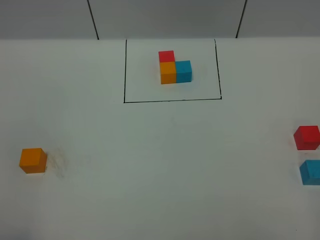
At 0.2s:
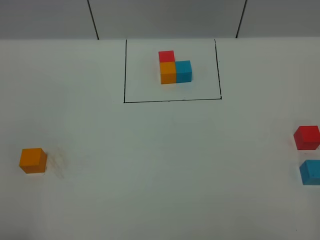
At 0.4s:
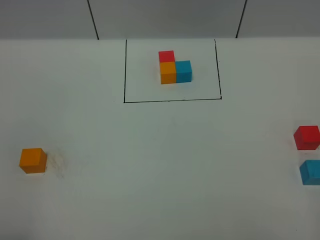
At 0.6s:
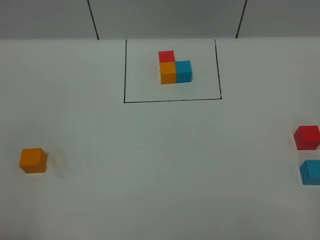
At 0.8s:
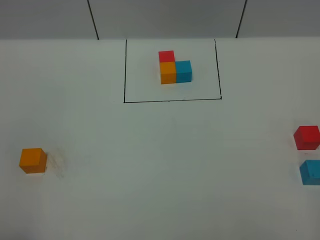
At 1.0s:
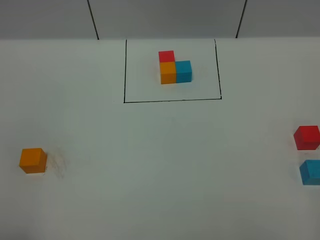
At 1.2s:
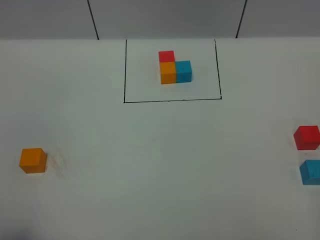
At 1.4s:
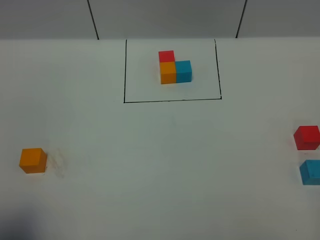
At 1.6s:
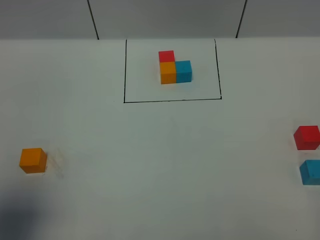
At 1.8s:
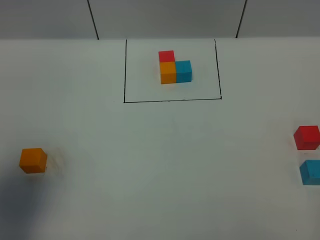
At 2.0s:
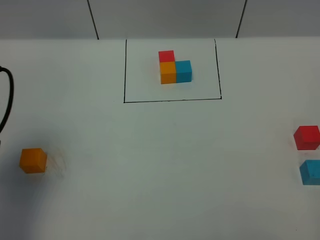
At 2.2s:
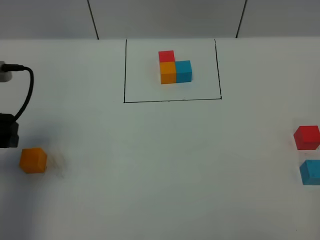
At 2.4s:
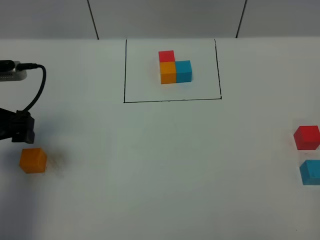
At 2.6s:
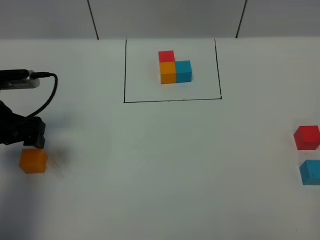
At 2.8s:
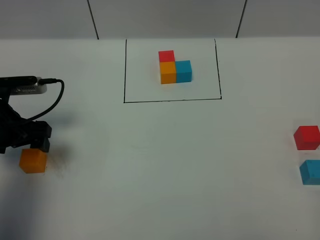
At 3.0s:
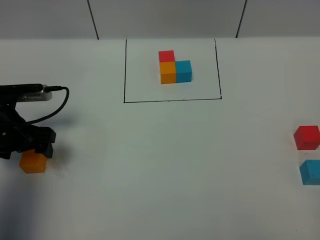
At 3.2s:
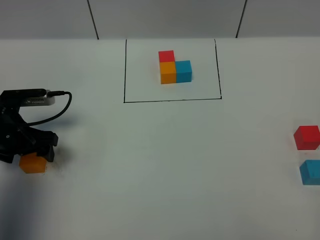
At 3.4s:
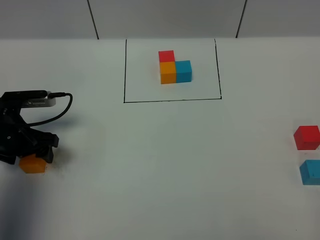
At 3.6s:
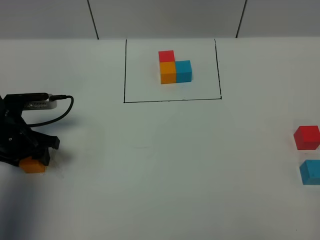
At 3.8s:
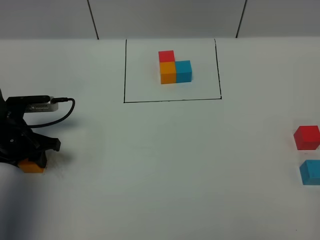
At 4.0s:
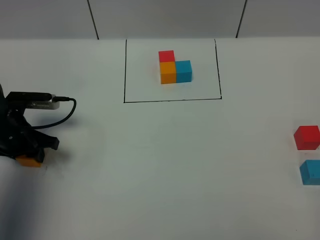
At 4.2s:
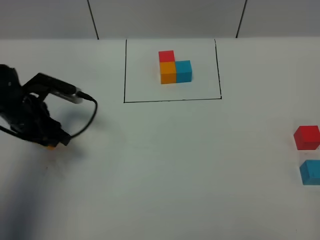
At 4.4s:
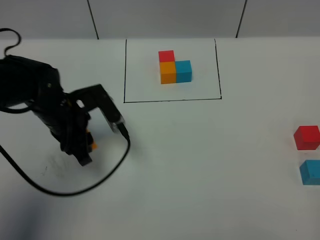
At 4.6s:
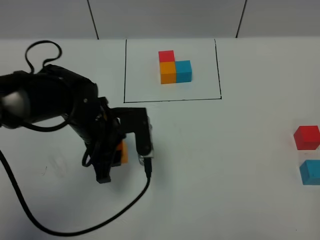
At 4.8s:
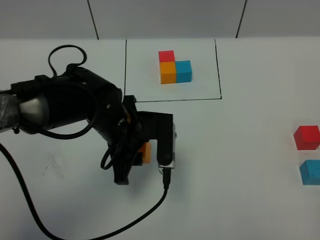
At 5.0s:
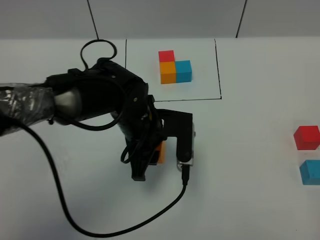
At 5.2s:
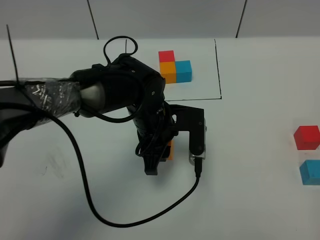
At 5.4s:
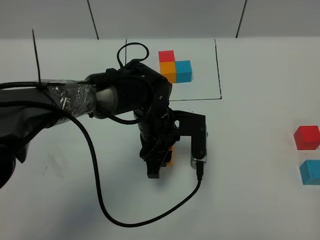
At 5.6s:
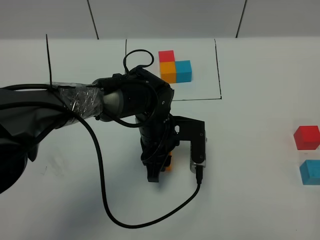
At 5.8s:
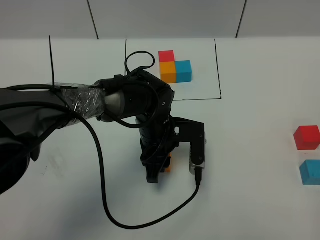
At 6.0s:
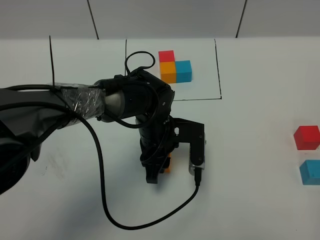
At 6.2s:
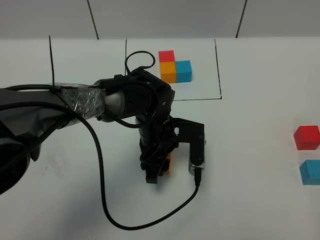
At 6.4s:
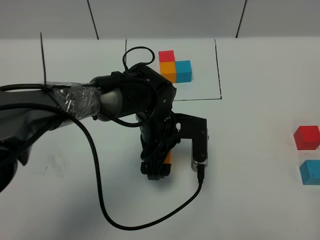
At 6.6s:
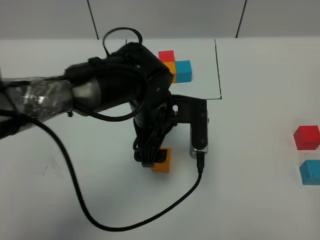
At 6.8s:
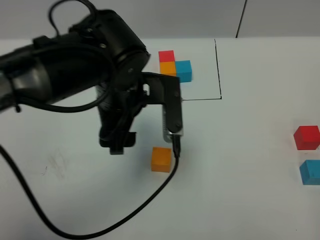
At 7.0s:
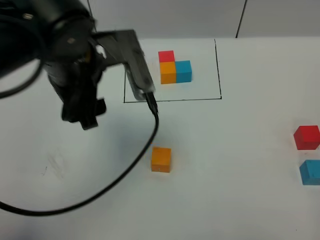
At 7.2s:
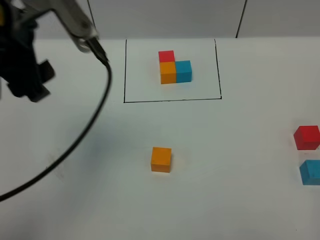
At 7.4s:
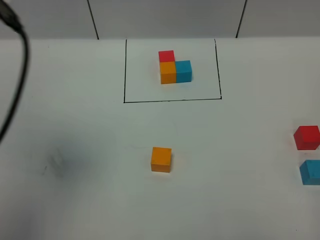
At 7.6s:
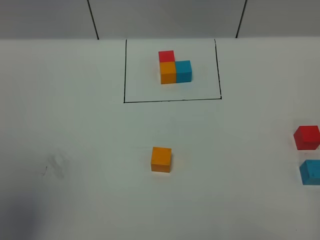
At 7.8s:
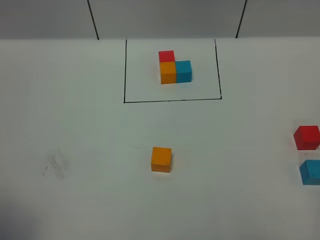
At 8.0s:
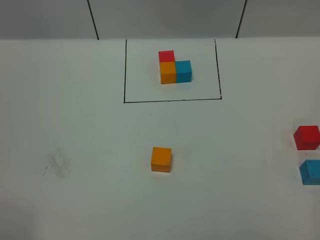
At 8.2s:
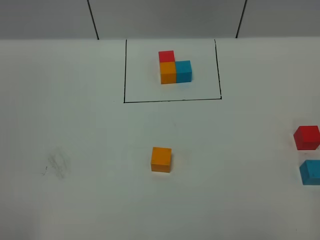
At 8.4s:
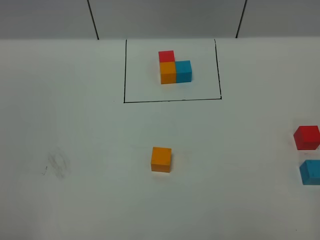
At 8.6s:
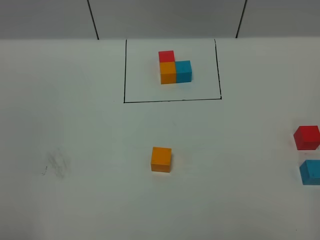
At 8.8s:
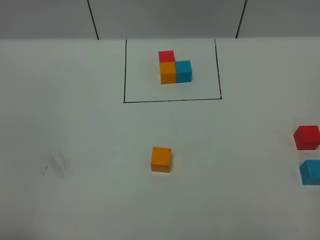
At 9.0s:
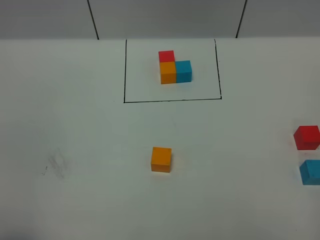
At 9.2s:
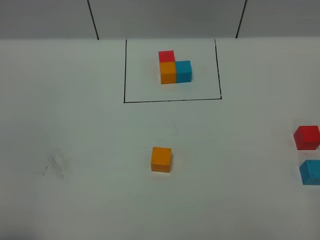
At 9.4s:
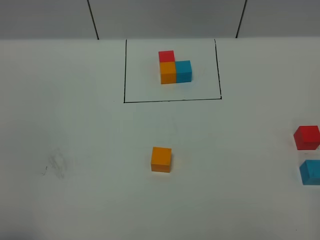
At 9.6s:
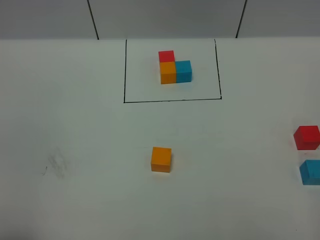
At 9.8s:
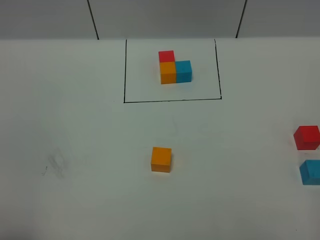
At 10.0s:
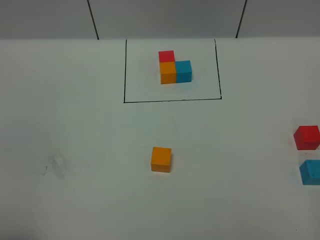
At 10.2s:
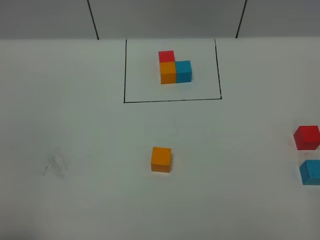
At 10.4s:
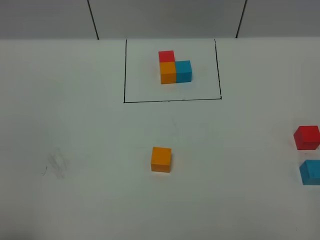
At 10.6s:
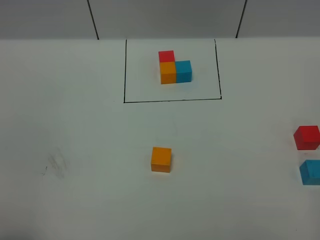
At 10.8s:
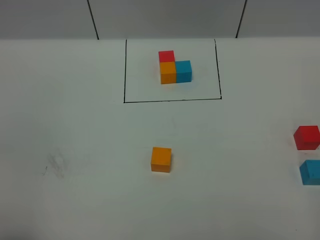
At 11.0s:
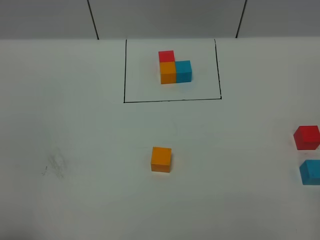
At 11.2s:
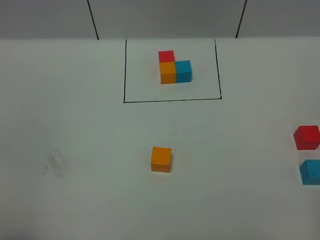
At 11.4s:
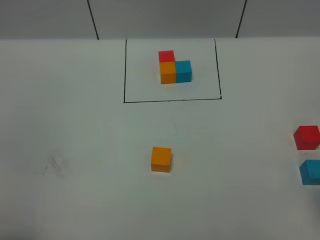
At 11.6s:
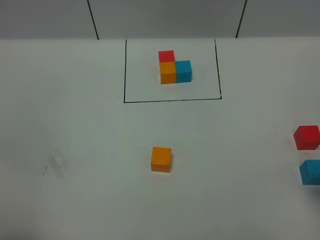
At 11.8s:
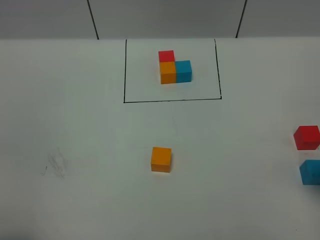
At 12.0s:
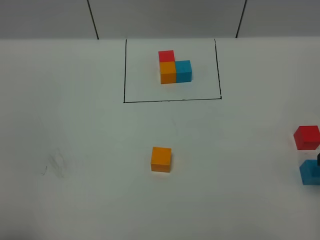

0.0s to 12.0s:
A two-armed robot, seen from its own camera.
Task of the whole recording: According to the building block template in front, assemble the scattered blocks together.
Step, 1.4s to 6.4s: Put the orange cube in the center of the table.
0.0s to 1.6s: The left gripper goes roughly 10 cm forward and upward, and opens up.
1.6s to 3.0s: The left gripper heads forward and downward, covering about 30 cm.
3.0s to 4.4s: The left gripper is displaced to the right by about 15 cm, and closes up.
4.4s to 6.0s: The left gripper shifts approximately 15 cm to the right.
6.0s to 7.6s: The left gripper shifts roughly 50 cm upward, to the left and backward, and opens its fingers.
7.6s to 9.0s: The left gripper heads downward, covering approximately 20 cm.
9.0s to 10.4s: Both grippers stay put.

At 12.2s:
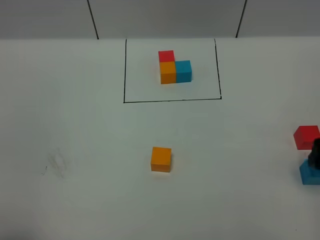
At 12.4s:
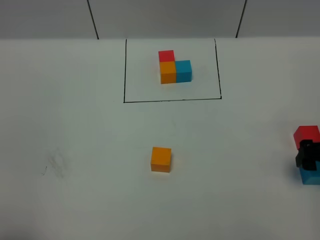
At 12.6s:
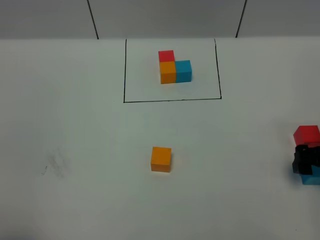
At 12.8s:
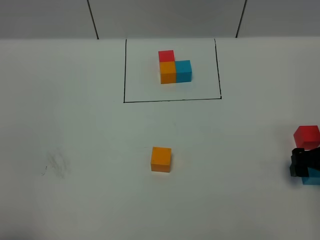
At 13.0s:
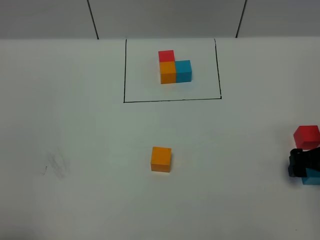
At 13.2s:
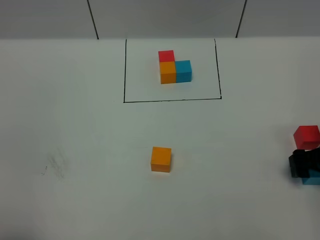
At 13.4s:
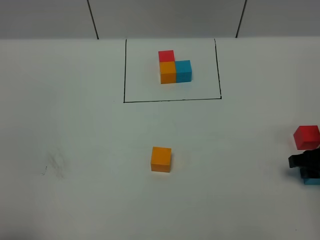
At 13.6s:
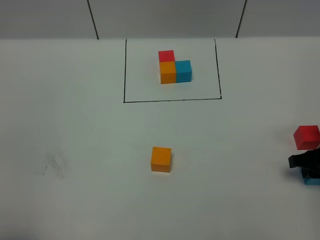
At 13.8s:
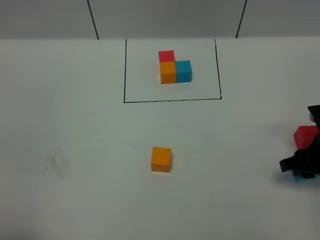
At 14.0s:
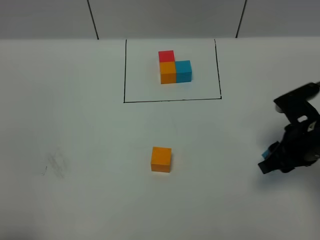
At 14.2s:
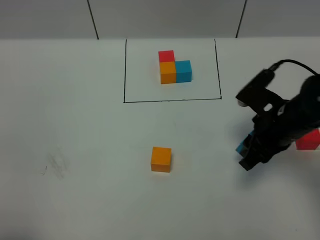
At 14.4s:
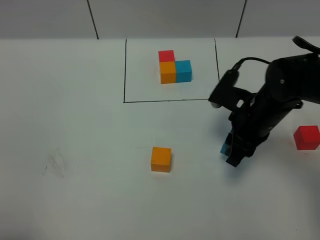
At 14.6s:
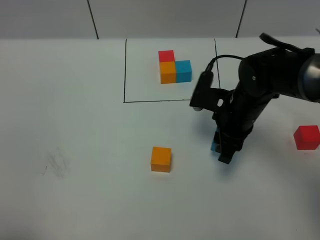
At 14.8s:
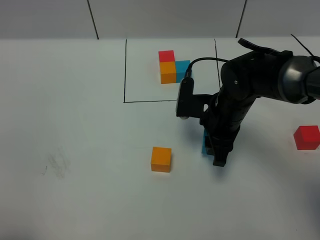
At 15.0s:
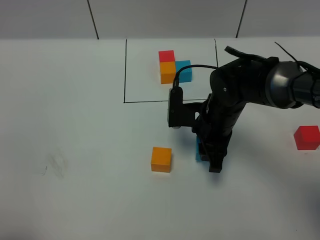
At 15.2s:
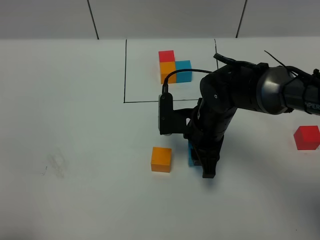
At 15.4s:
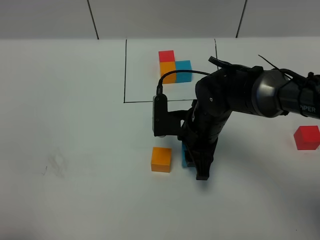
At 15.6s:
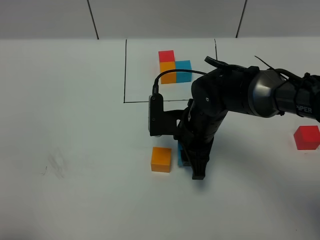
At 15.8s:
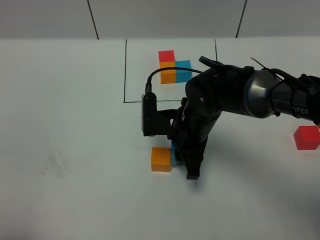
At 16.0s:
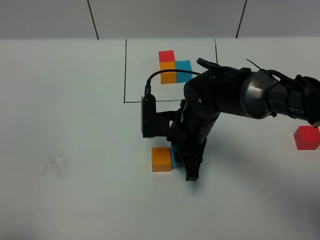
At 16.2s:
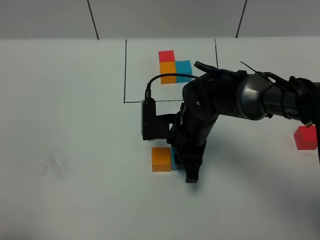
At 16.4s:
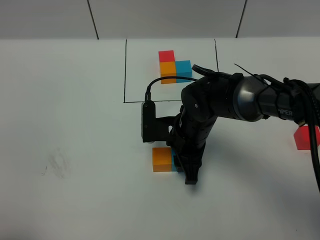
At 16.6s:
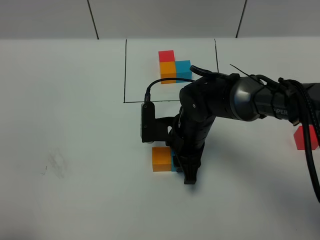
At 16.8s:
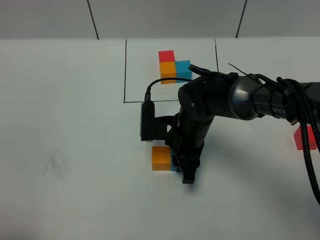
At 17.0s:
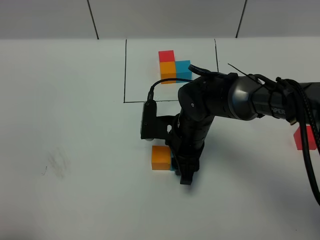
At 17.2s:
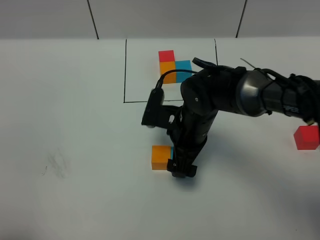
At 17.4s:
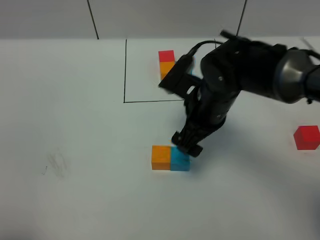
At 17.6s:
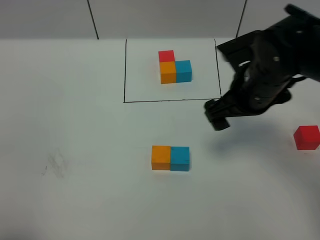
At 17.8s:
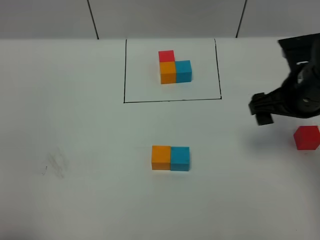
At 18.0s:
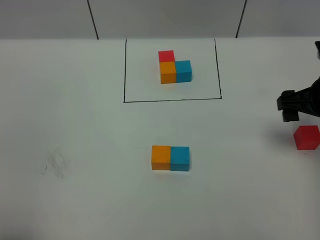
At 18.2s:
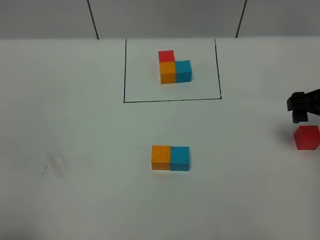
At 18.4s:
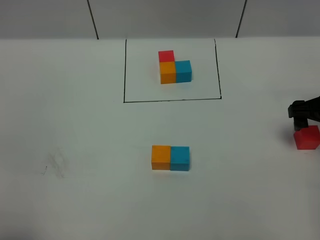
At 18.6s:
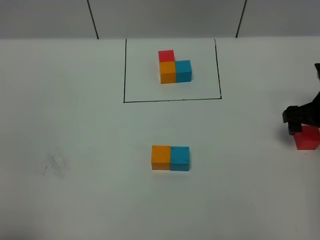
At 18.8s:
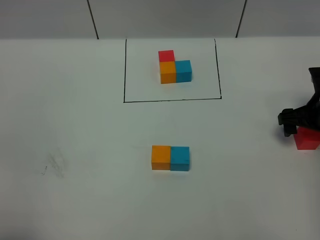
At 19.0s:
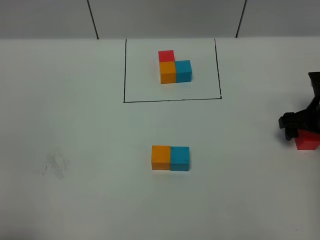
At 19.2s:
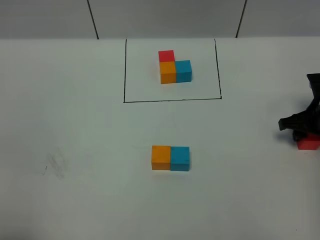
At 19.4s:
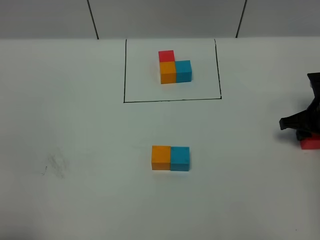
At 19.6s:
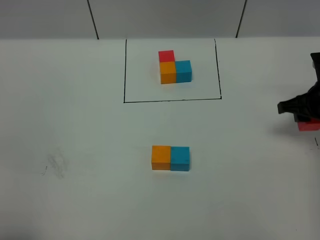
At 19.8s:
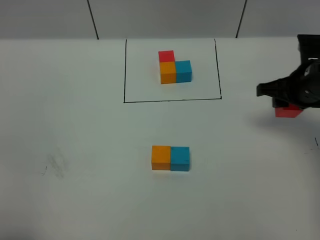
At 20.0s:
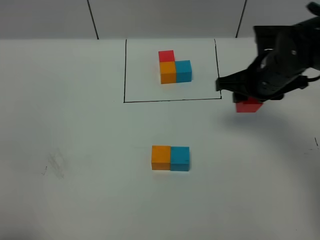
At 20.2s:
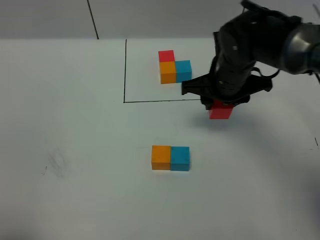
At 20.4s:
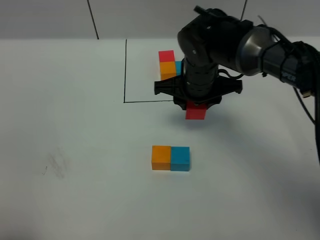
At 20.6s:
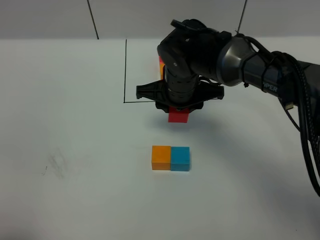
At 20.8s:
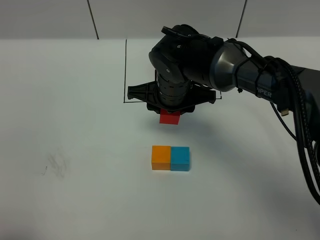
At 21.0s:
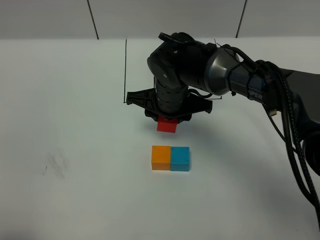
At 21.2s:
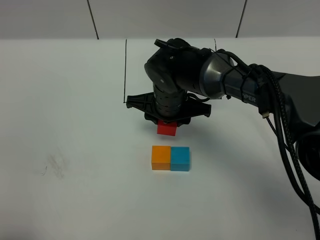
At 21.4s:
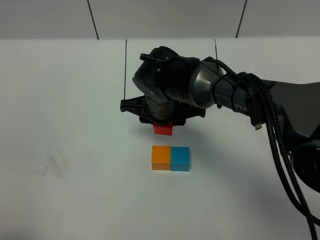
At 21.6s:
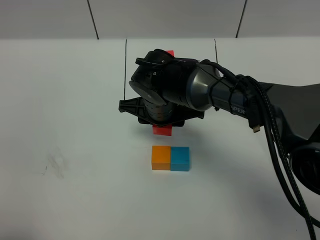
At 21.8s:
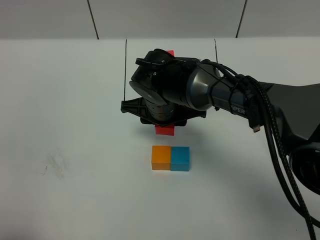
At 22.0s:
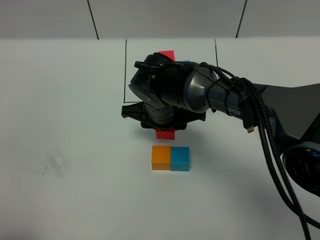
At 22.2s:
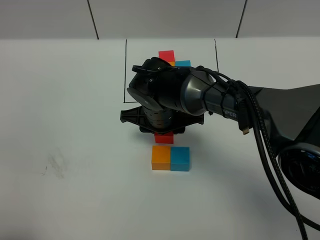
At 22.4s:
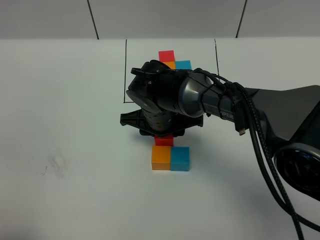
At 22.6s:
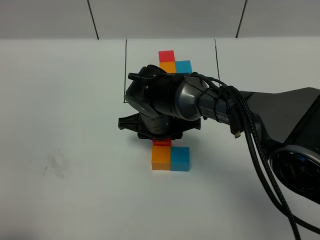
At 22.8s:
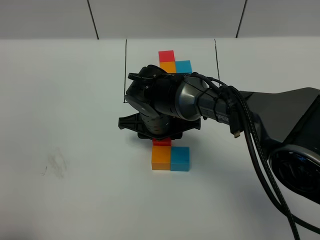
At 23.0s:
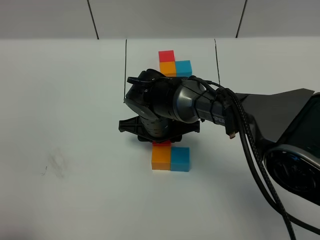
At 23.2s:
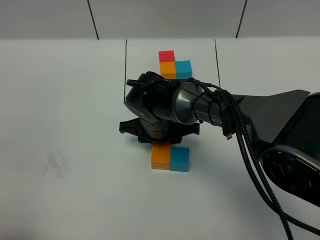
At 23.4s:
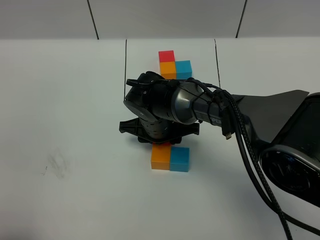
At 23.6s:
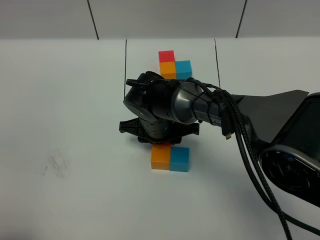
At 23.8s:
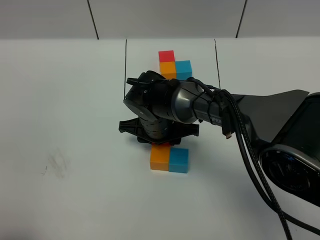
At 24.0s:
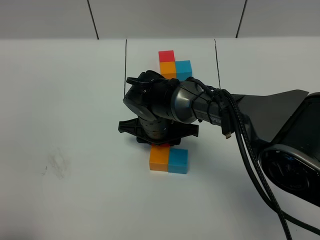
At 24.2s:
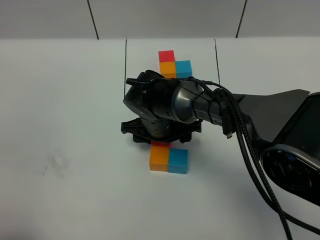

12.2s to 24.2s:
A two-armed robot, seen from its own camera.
Task of the whole recording: According to the building block template in front, assemble the scattered blocks together.
Step, 12.2s to 17.2s: Put the blue cube on the right of the orange cube.
12.2s to 13.8s: The right gripper changes place by some 5 cm, and closes up.
13.8s to 15.2s: The right gripper heads to the left, covering approximately 20 cm.
15.2s to 16.6s: The grippers stay close to where they were, moving slightly.
16.6s to 18.2s: The right gripper travels to the right by roughly 25 cm, and opens its fingers.
18.2s to 19.8s: The right gripper moves to the left, some 5 cm, moves approximately 10 cm downward and comes back, and closes up.
19.8s to 21.2s: The right gripper goes approximately 25 cm to the left.
22.6s to 24.2s: The grippers move only a little.
